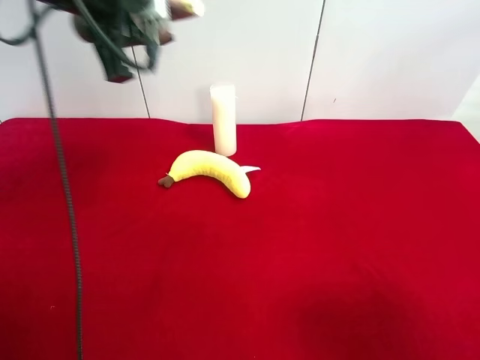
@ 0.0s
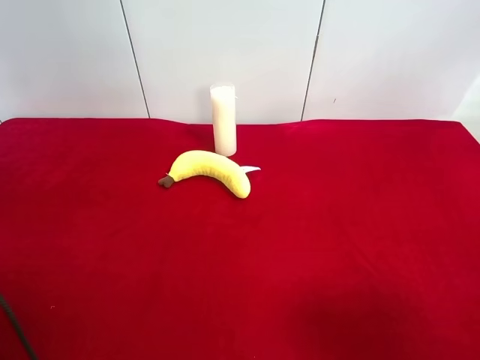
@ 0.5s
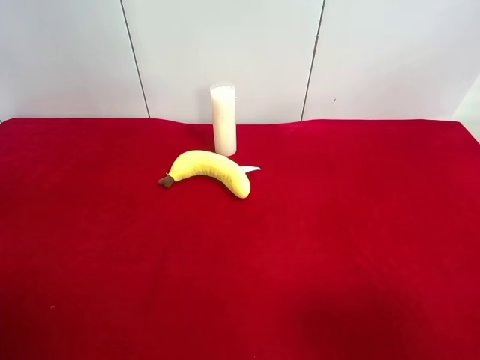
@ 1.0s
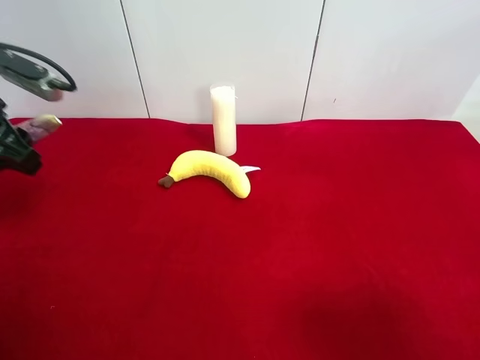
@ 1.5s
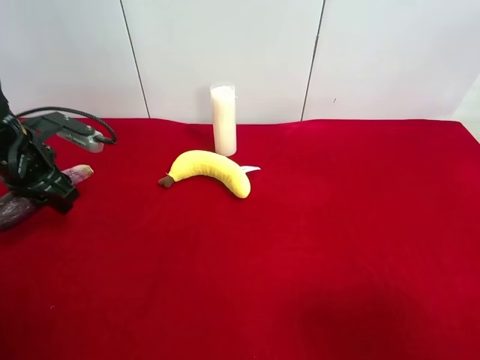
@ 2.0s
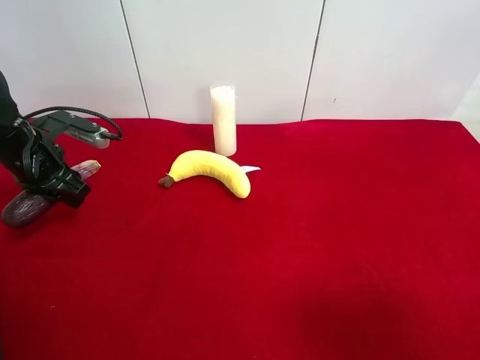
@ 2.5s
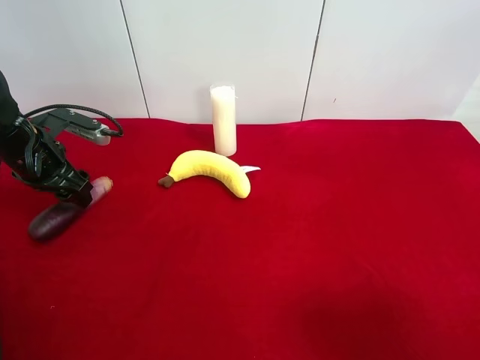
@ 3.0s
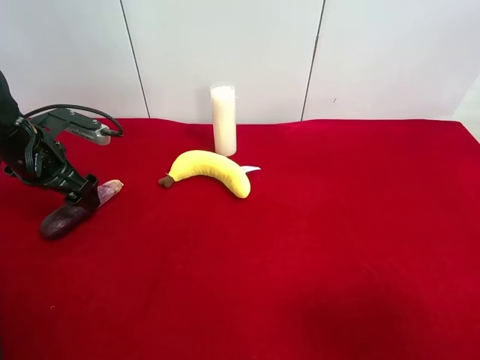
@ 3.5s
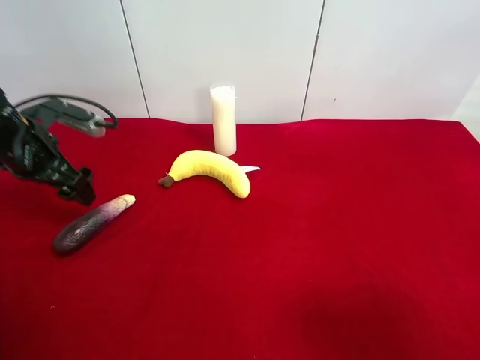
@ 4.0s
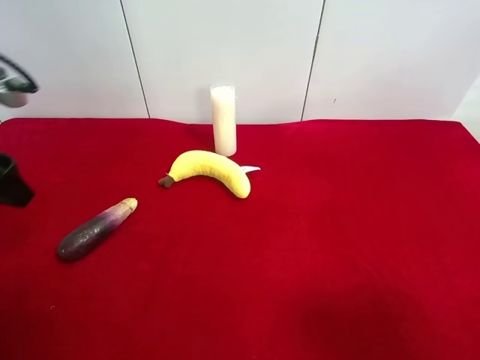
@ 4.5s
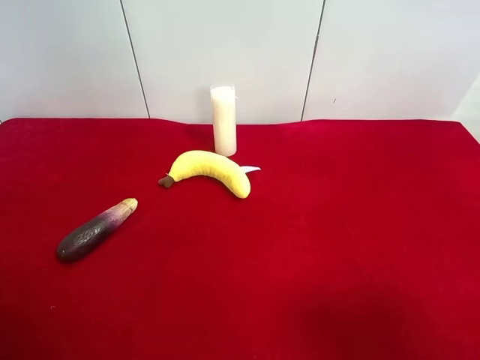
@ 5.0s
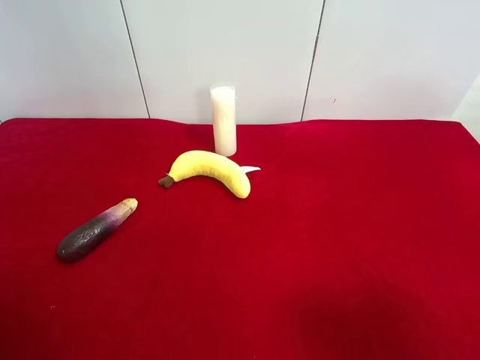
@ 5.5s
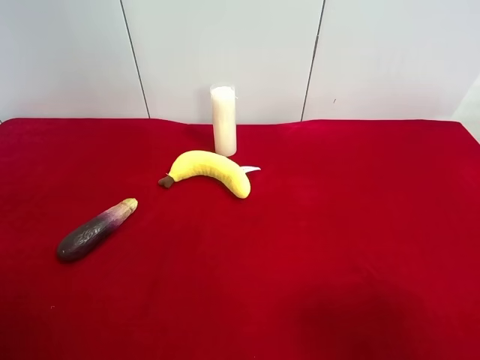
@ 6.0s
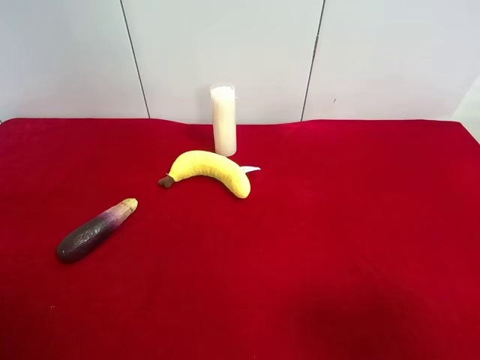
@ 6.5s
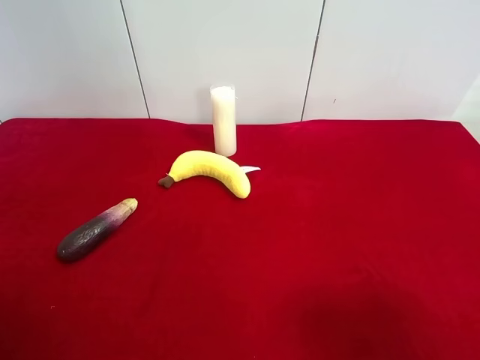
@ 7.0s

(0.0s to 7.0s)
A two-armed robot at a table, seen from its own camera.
Task of the whole recording: use the right gripper to pick up the item and transfer it from the right gripper to the left gripper.
Step, 0.0s - 3.0s: The left gripper places eggplant on the left side of the table.
0.0s - 2.0s: The left gripper is displaced downward and to the left by some 25 cm.
2.0s - 3.5s: The left gripper opens.
3.5s - 5.0s: The left gripper is displaced backward and upward by some 25 cm.
